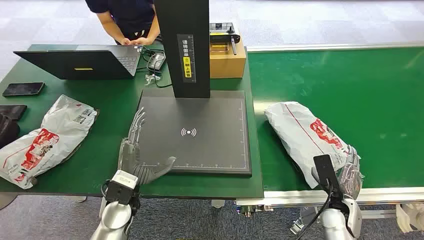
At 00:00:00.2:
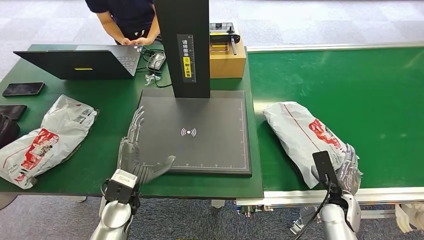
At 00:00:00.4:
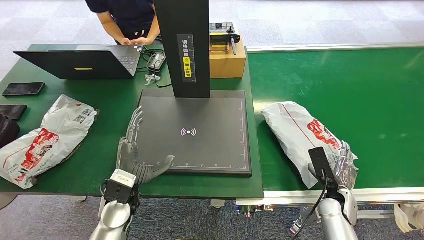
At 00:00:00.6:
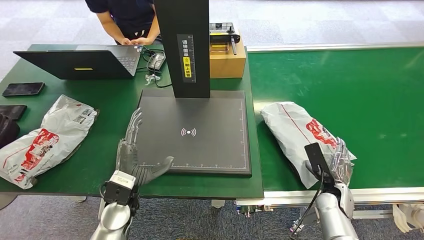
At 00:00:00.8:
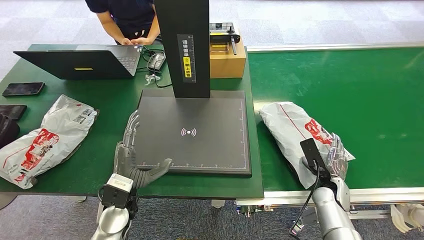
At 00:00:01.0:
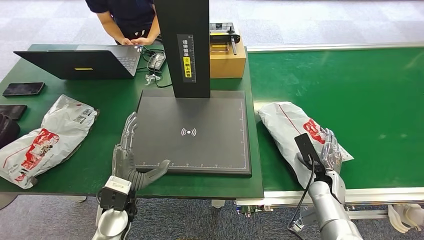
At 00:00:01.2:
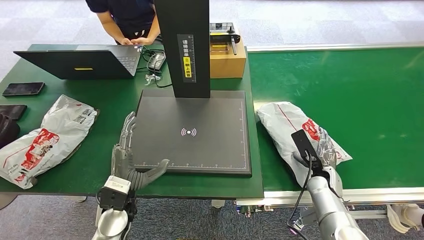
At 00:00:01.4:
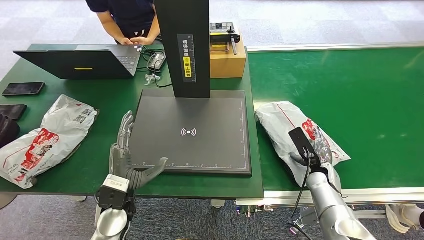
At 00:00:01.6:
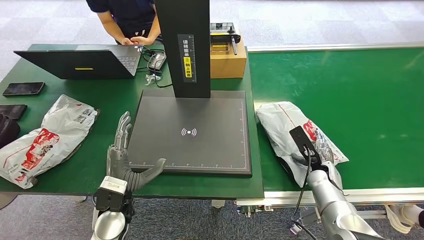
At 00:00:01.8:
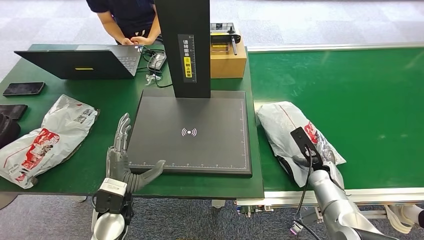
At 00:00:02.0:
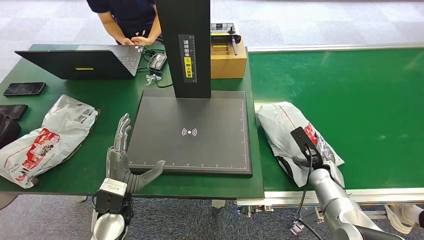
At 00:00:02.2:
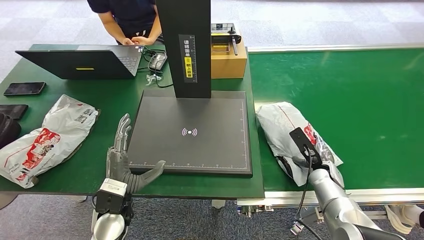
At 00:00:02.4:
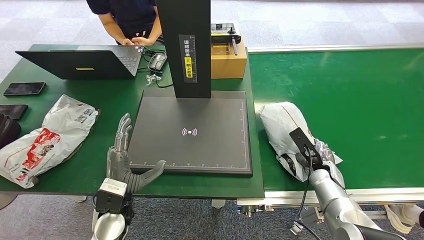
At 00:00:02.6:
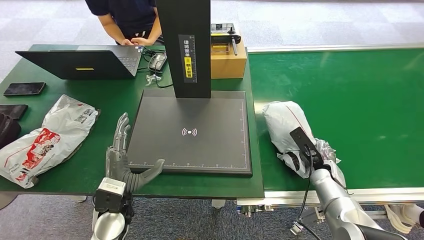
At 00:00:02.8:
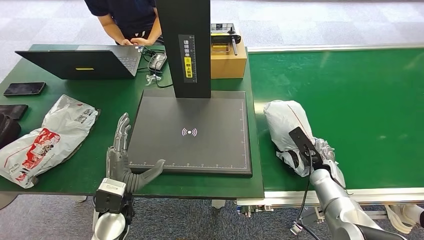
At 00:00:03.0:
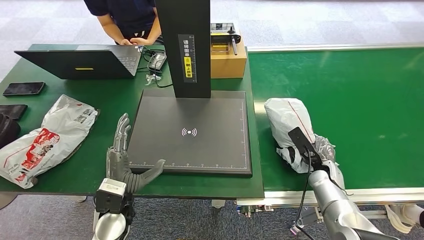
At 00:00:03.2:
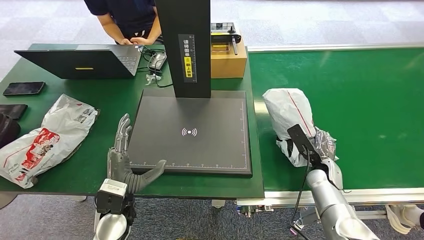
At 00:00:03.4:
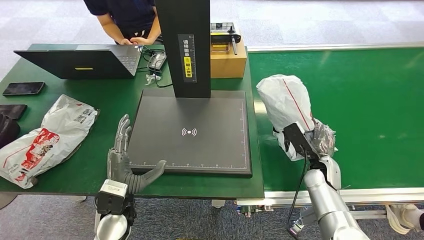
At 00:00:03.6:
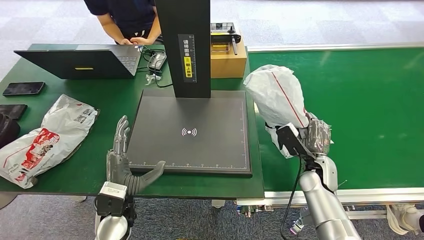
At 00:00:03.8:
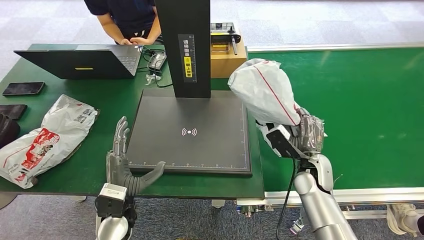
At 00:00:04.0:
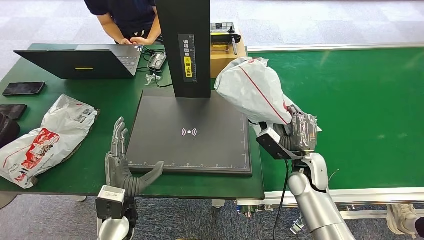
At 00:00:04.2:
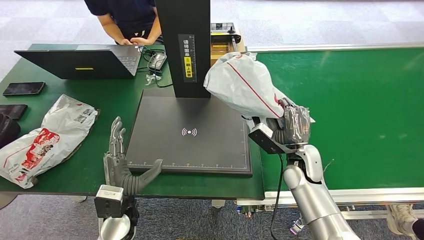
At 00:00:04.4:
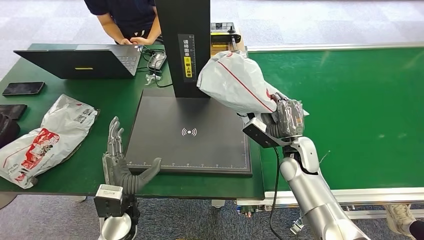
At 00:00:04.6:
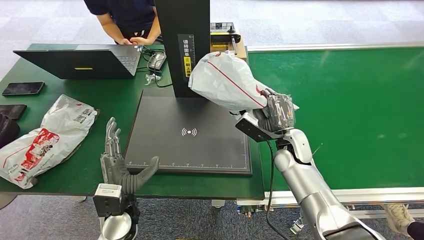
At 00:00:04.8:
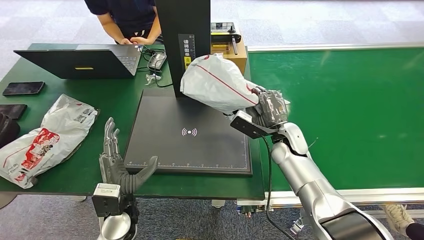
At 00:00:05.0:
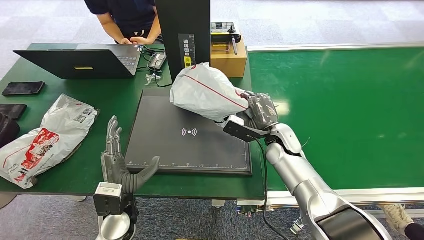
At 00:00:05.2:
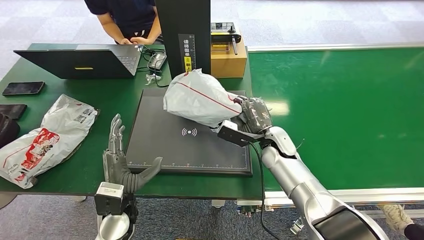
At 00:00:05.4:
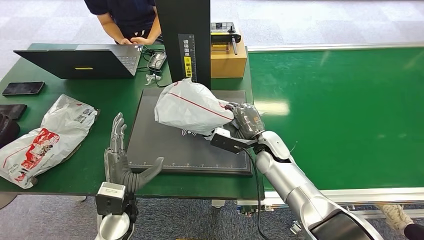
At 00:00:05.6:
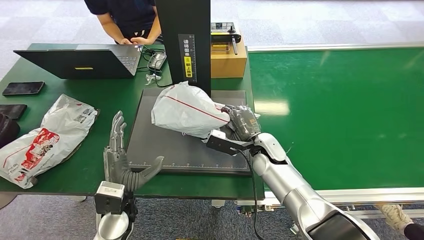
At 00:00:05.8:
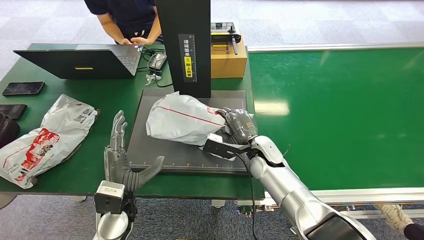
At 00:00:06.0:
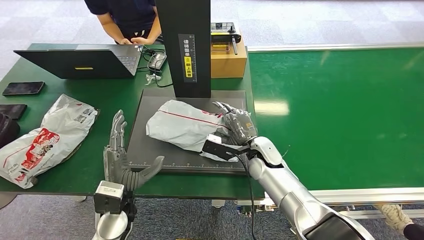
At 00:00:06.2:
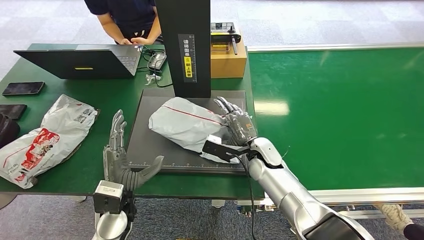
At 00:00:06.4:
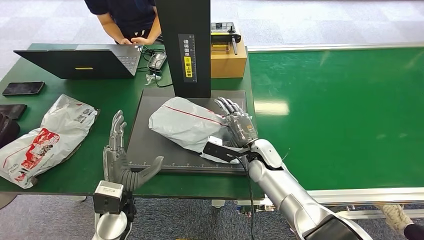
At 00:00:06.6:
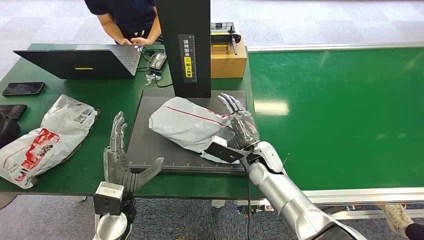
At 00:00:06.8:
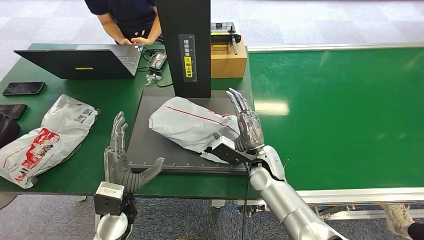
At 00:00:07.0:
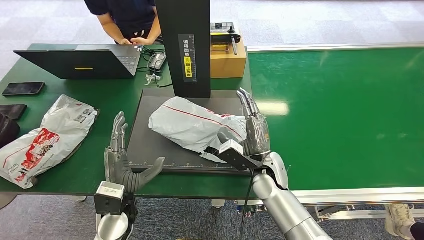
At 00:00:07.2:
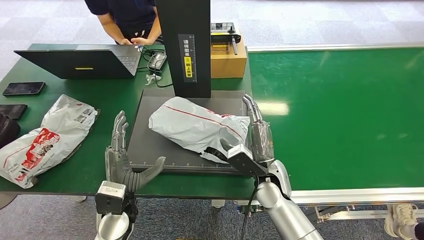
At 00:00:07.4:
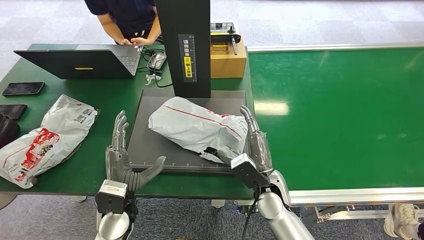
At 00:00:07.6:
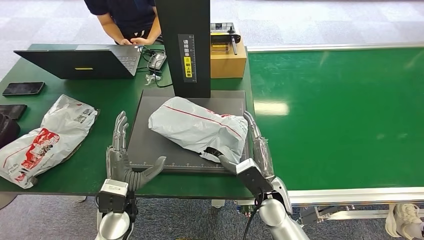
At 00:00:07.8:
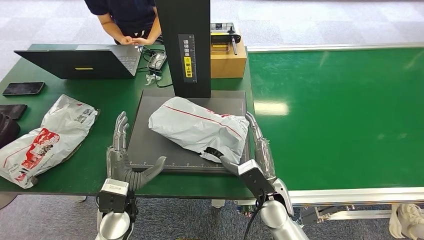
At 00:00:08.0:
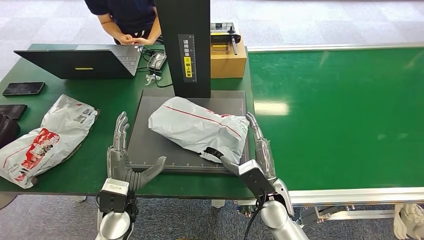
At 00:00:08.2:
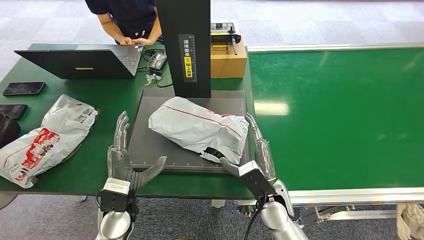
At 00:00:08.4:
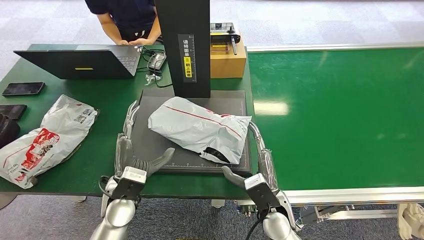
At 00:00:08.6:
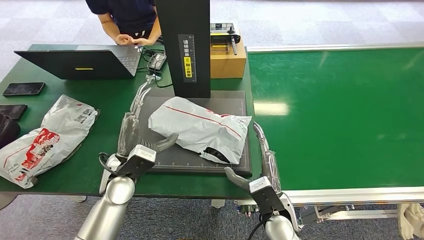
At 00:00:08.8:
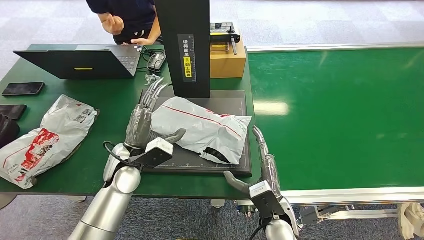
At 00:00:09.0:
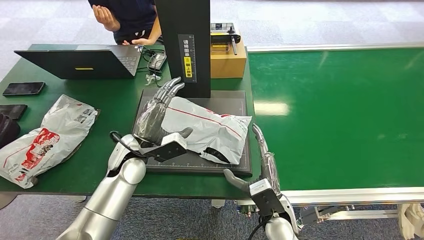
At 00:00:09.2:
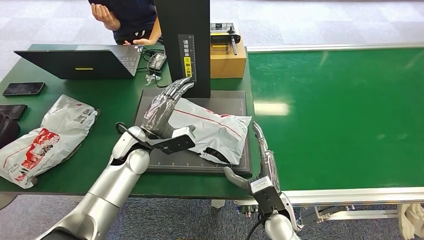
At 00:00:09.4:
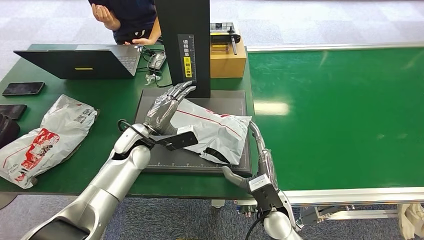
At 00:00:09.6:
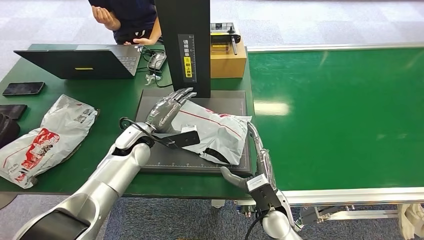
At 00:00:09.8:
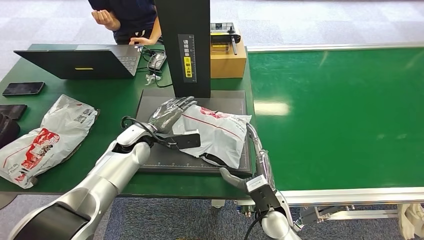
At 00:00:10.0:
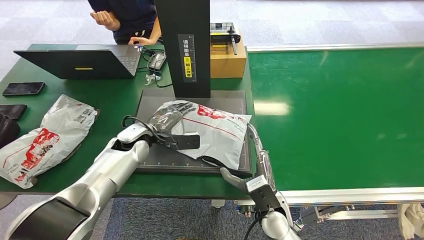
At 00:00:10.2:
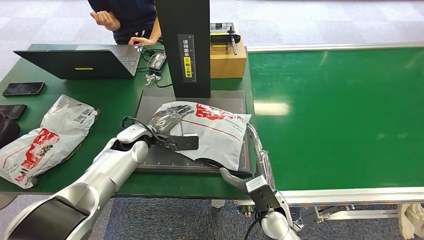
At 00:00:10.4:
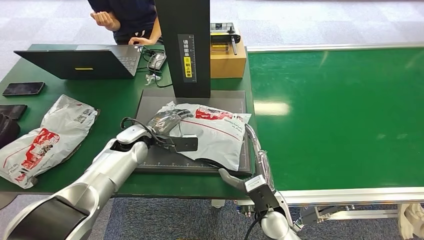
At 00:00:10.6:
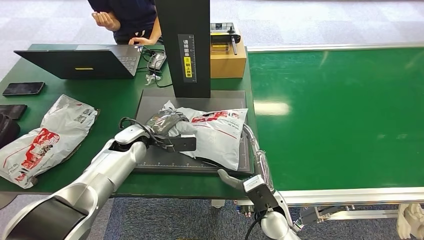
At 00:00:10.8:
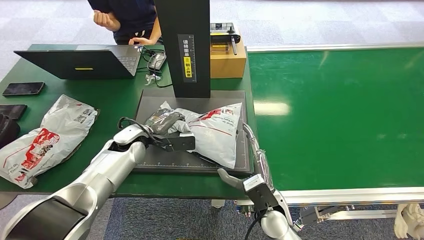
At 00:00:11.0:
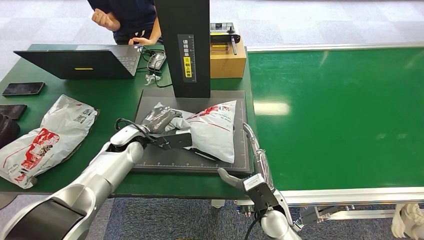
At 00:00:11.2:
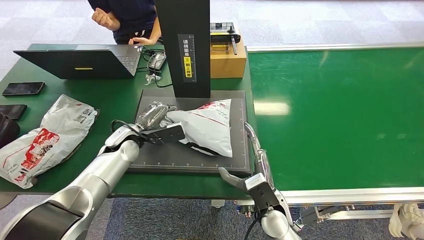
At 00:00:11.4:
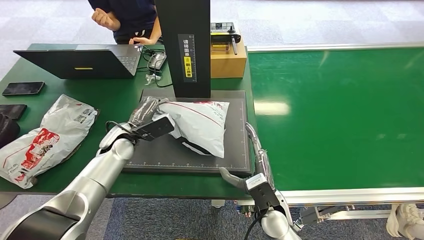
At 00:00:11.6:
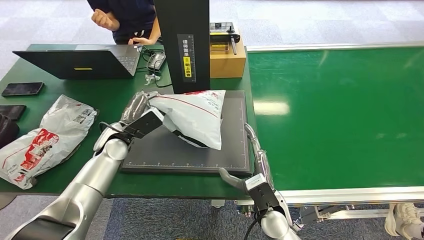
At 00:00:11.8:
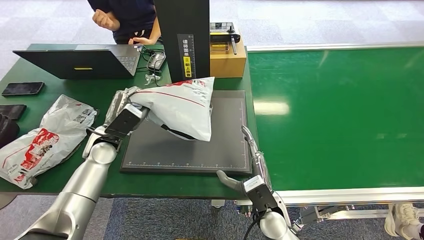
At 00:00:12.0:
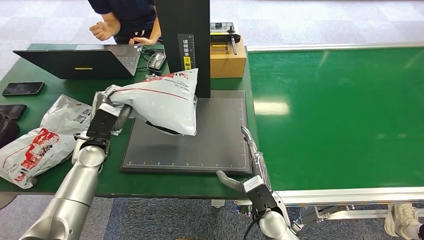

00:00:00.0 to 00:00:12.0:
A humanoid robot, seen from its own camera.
Step, 00:00:00.0 to 00:00:04.0: Pick up the package from the conveyor belt.
Step, 00:00:04.2 to 00:00:07.4: Place the package onto the inbound machine.
00:00:01.6 to 00:00:03.0: The hands move only a little.
00:00:03.0 to 00:00:04.4: The right hand moves to the left and upward, roughly 15 cm.
00:00:04.4 to 00:00:06.0: The right hand shifts some 10 cm to the left.
00:00:06.0 to 00:00:07.6: The right hand is displaced backward by some 10 cm.
00:00:07.6 to 00:00:09.0: The left hand heads forward and upward, covering about 15 cm.
00:00:09.0 to 00:00:10.4: The left hand goes about 5 cm forward.
00:00:10.4 to 00:00:12.0: The left hand goes some 10 cm to the left.

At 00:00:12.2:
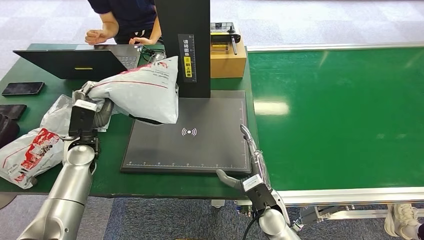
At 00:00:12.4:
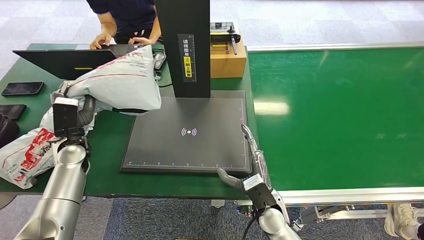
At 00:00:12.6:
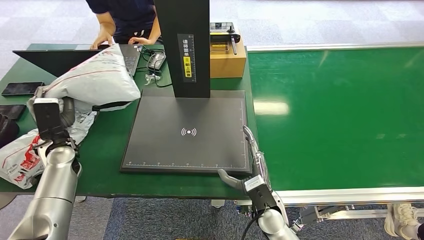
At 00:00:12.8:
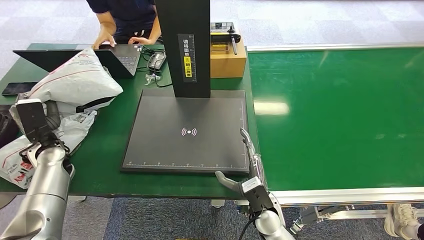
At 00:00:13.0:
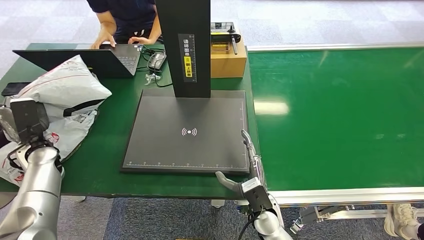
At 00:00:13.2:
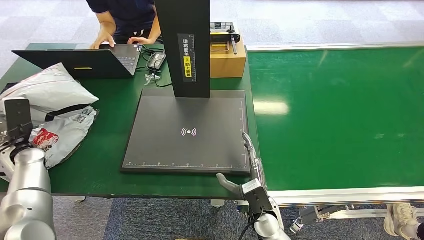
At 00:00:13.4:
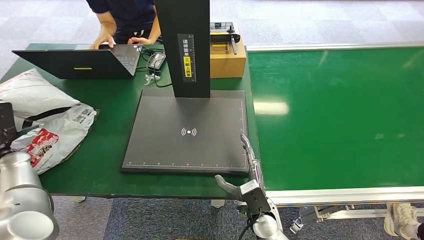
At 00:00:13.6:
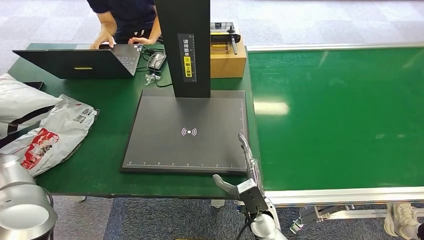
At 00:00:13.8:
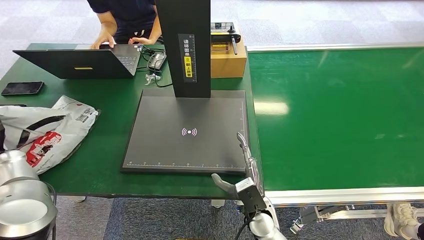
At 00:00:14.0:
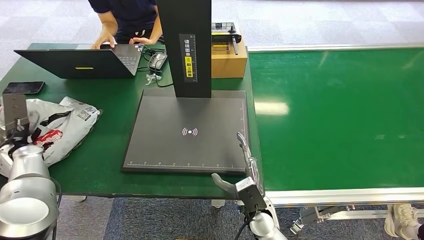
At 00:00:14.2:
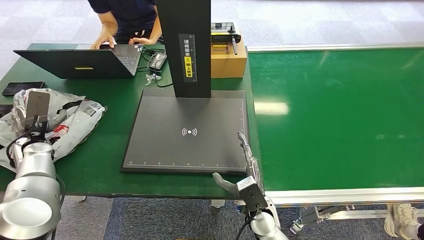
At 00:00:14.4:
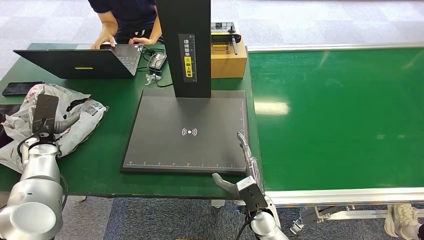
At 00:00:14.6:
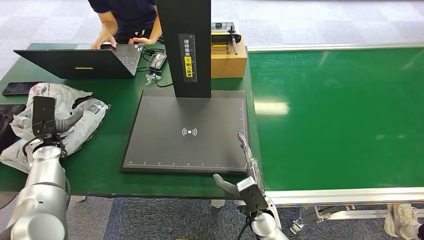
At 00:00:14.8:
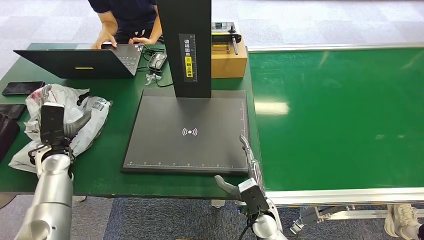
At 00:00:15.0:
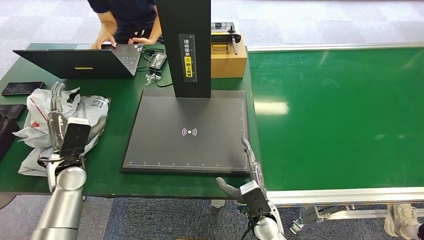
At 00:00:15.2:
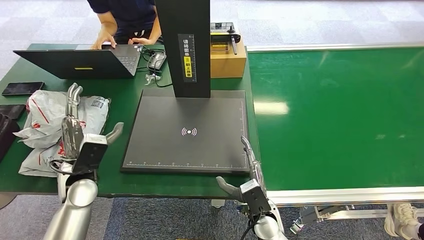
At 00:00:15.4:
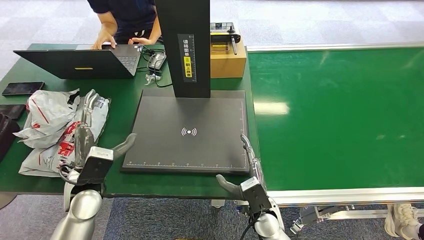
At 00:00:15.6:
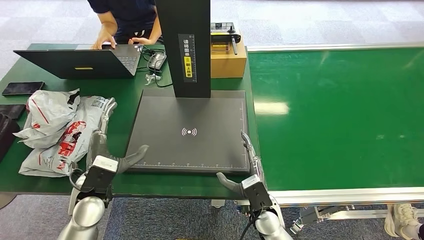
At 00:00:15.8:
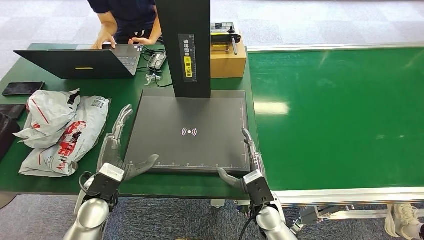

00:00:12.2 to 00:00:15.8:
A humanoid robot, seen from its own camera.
Step, 00:00:12.4 to 00:00:15.8: Place the package into the parcel locker.
00:00:12.2 to 00:00:14.0: The left hand travels to the left by about 15 cm.
00:00:14.0 to 00:00:15.8: The left hand heads to the right and backward, covering approximately 25 cm.
